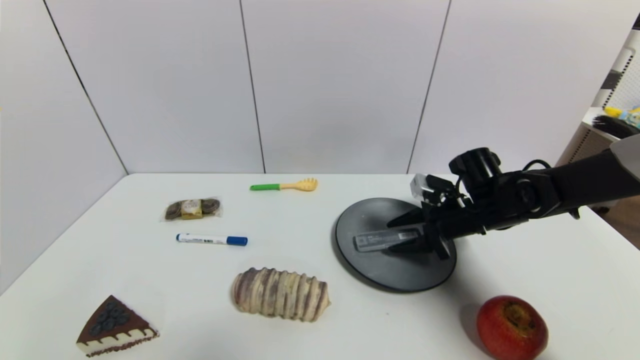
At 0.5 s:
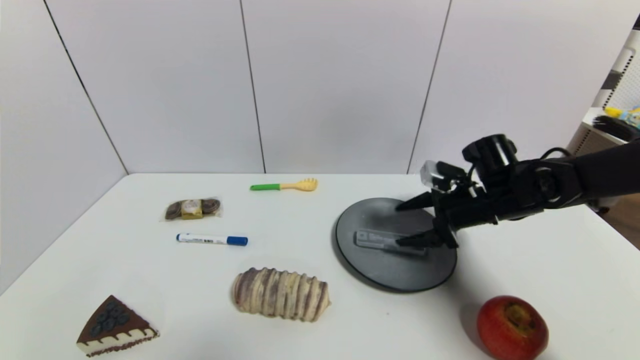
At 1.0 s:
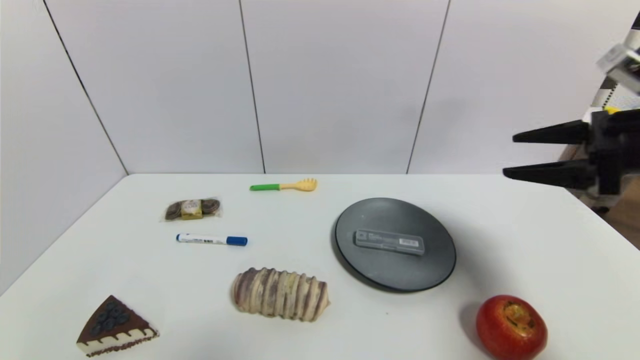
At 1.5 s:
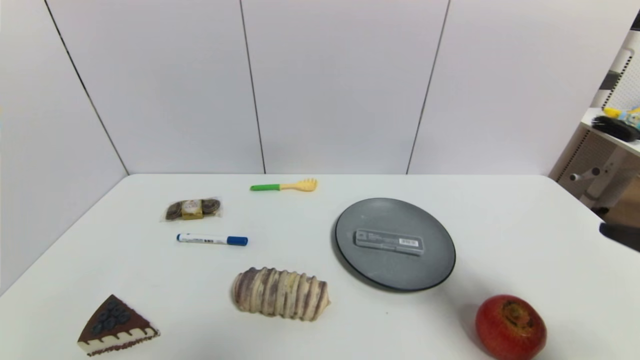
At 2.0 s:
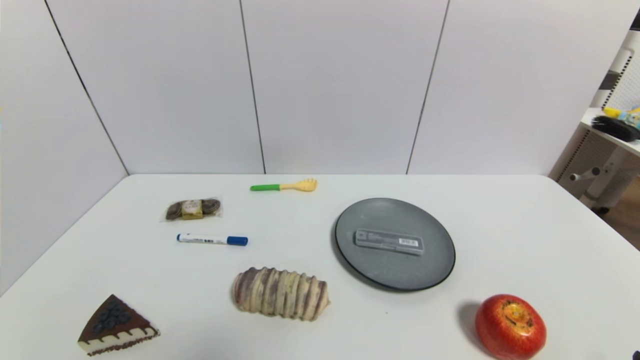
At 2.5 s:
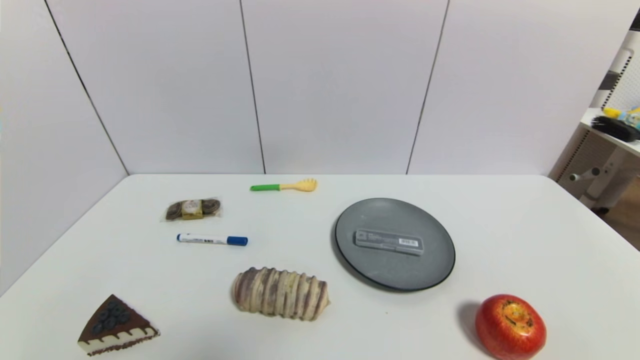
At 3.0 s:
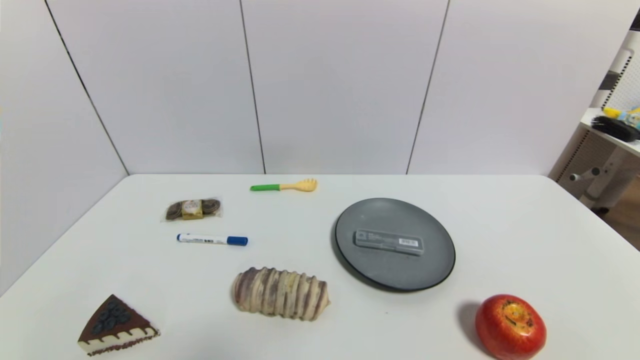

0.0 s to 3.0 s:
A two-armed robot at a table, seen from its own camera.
Task of the whole recording: use a gripper to pick the target object and place on the gray plate.
0.0 to 1.5 s: The right gripper travels backward and upward by approximately 30 cm, and opens its fingers.
1.5 to 3.0 s: The right gripper is displaced downward and backward by roughly 20 cm.
